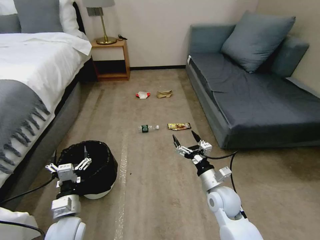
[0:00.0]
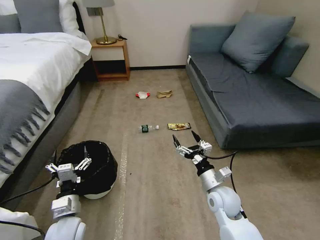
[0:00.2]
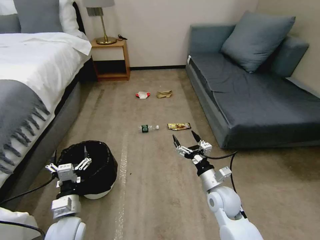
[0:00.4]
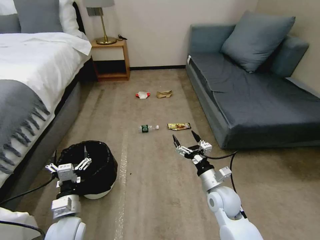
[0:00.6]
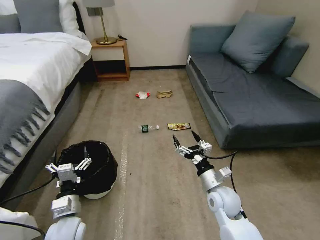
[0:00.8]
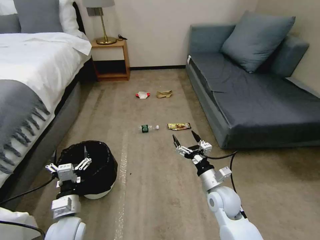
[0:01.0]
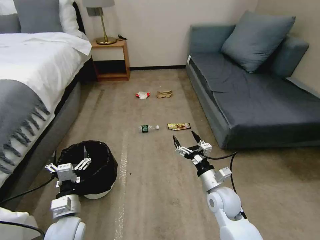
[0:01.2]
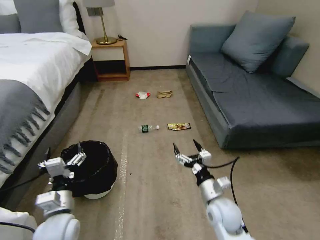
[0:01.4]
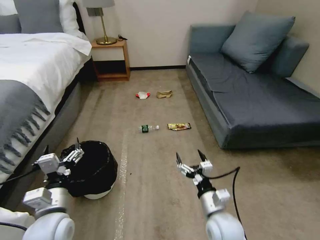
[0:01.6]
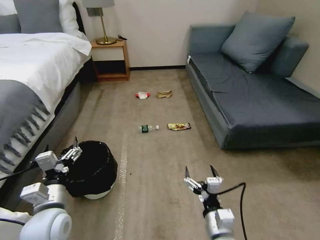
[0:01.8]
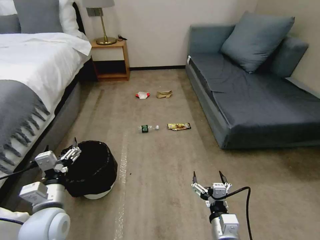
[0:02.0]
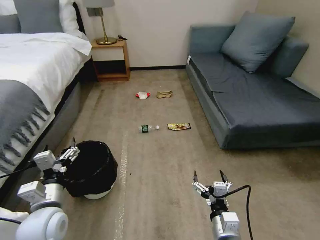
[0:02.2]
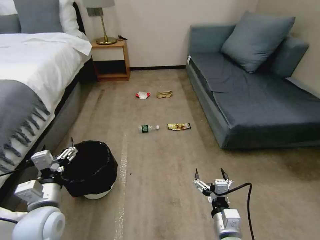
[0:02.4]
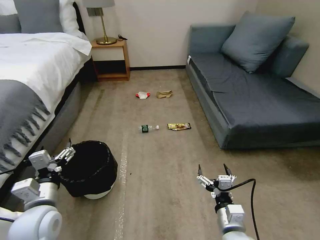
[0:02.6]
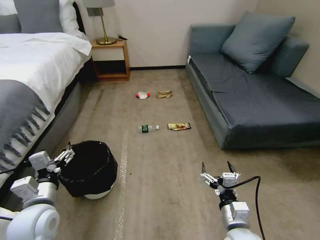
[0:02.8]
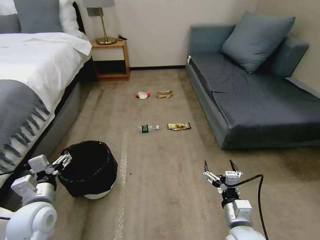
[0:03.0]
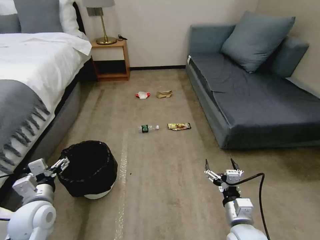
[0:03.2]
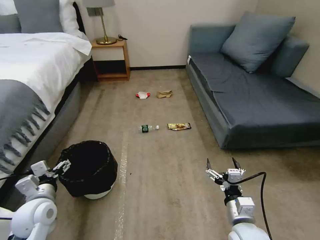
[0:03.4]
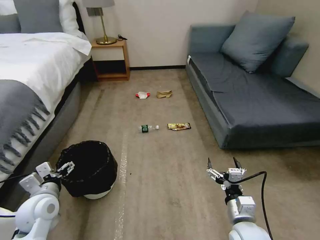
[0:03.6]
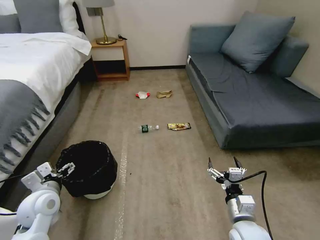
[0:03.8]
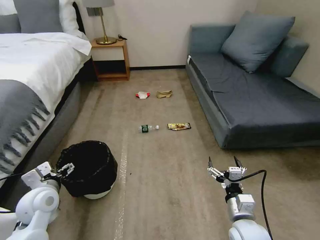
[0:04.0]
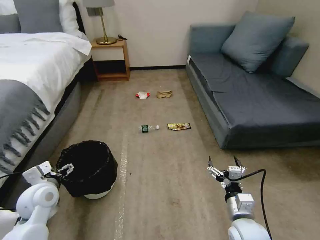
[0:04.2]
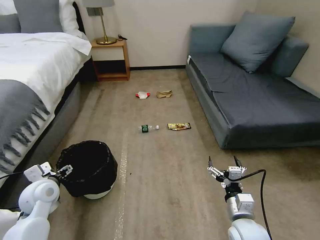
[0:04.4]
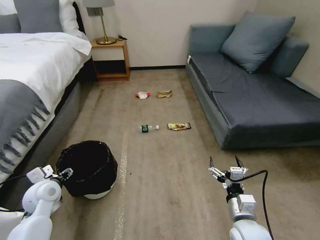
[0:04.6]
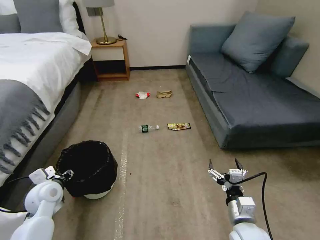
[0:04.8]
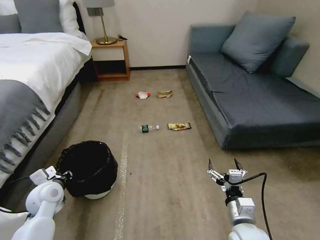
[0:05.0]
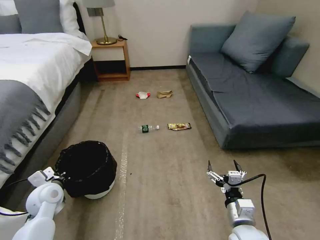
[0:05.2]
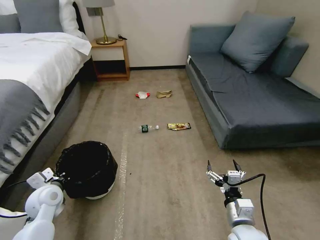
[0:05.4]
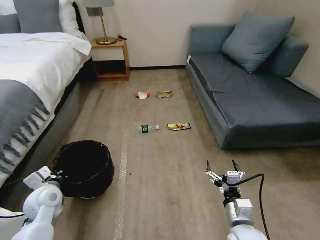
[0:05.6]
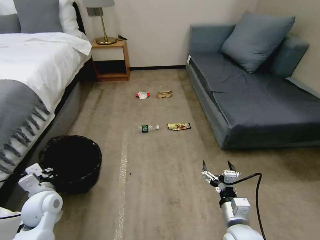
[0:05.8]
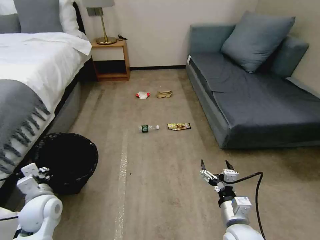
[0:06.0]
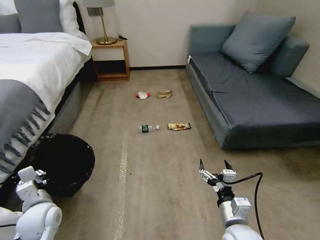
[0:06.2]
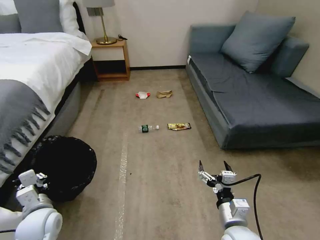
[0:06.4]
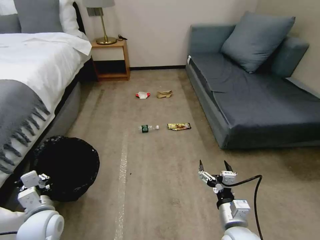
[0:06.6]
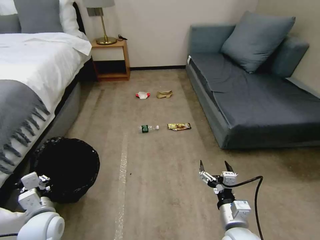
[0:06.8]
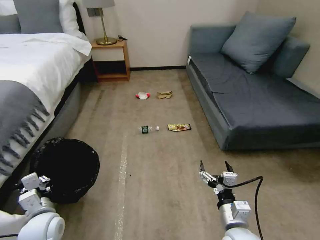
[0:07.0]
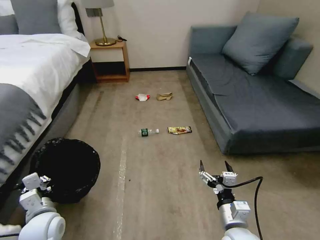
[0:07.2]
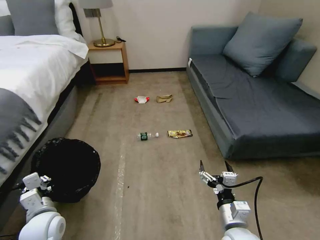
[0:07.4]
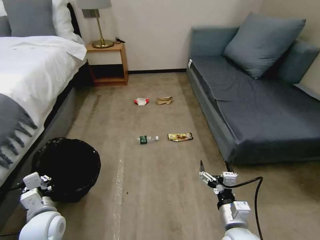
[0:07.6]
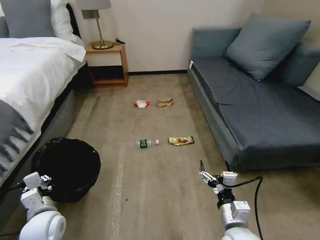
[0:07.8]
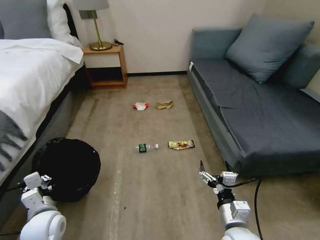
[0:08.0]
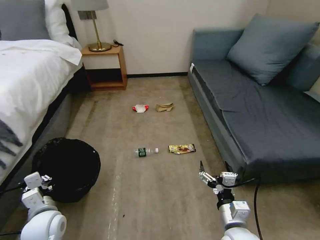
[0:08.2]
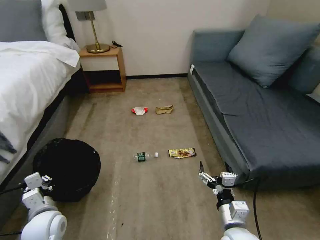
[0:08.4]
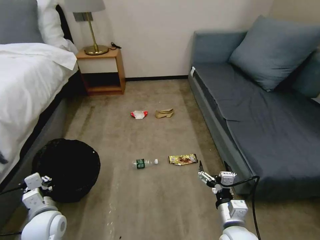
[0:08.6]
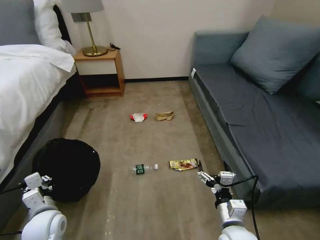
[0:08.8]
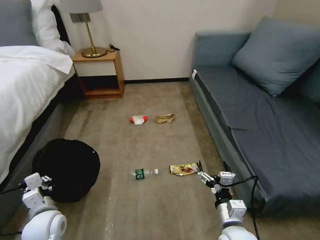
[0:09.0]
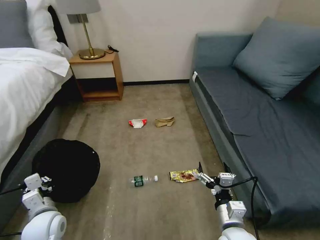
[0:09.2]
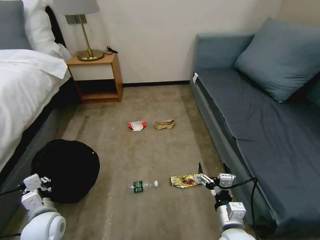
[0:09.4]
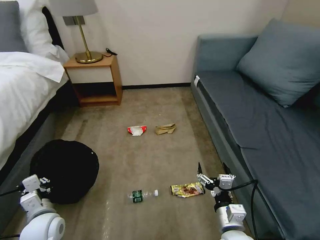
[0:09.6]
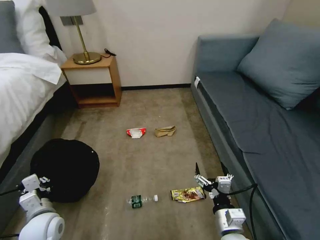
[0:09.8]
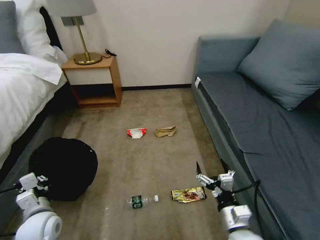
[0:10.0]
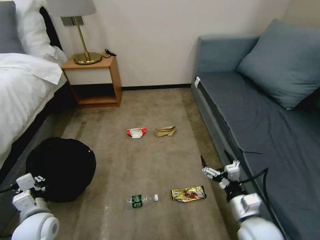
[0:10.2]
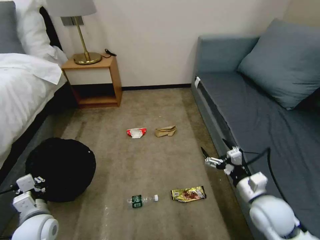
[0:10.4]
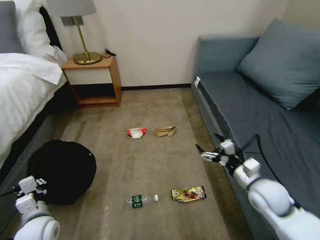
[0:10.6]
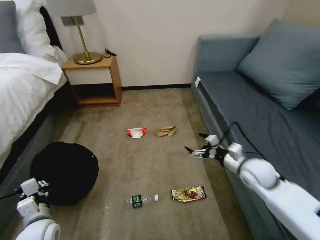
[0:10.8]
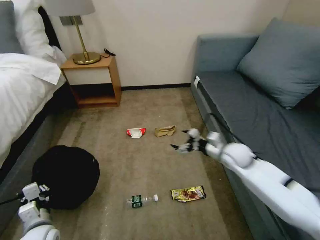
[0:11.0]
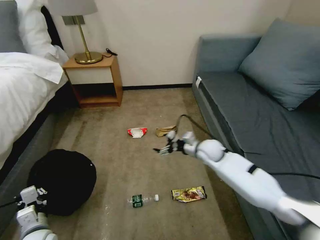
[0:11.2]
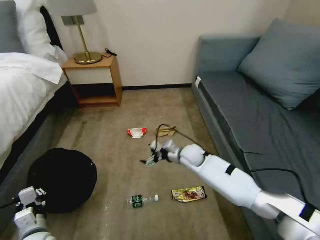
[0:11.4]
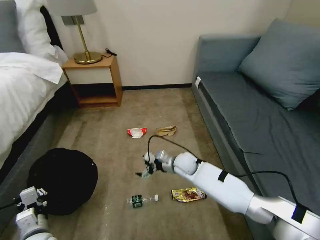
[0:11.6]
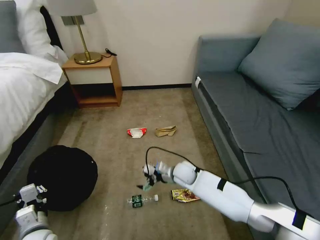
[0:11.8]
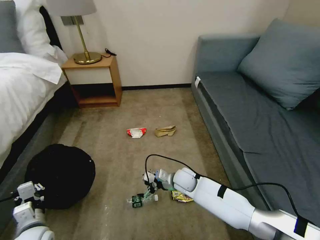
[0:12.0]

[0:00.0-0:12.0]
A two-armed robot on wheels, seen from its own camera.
Task of the whole recording: Pick up the trash bin, then pick up the garbage on the floor and place it into the trash bin.
0:01.6 to 0:03.0: The right gripper ends up roughly 5 cm from where it was. Meanwhile the left gripper heads to the left, covering roughly 5 cm.
0:03.0 to 0:04.4: The left gripper goes about 5 cm forward.
0:04.4 to 0:06.0: The left gripper closes its fingers.
0:09.0 to 0:10.4: The right gripper heads to the right and forward, covering approximately 10 cm.
0:10.4 to 0:12.0: The right gripper travels to the left, forward and downward by approximately 30 cm.

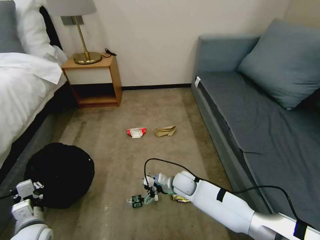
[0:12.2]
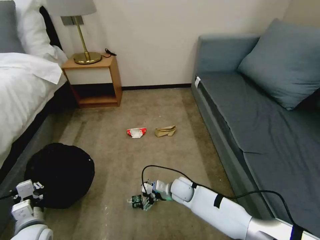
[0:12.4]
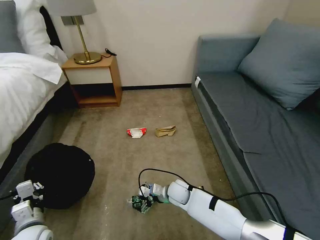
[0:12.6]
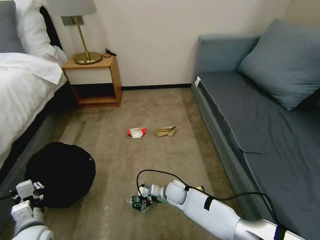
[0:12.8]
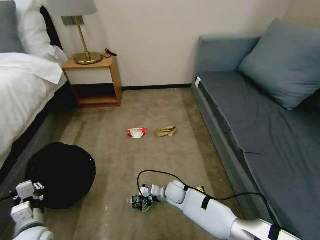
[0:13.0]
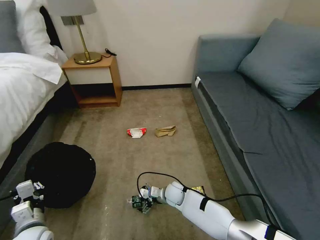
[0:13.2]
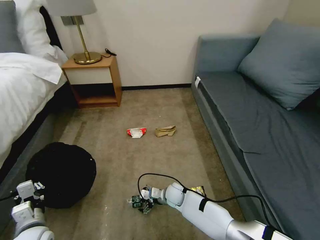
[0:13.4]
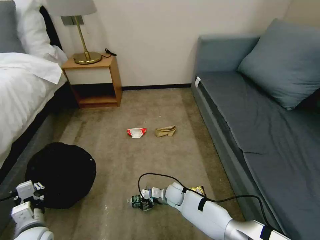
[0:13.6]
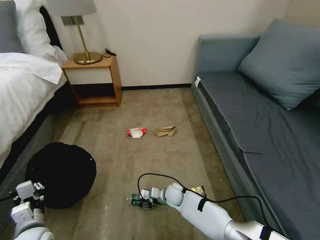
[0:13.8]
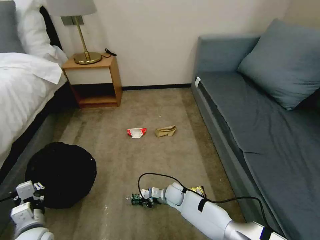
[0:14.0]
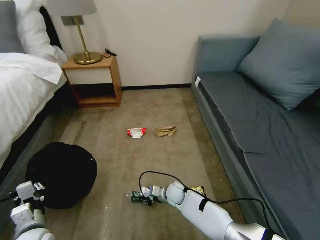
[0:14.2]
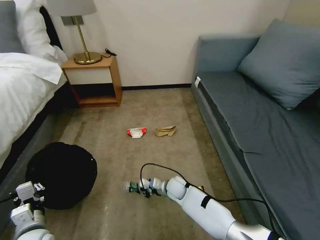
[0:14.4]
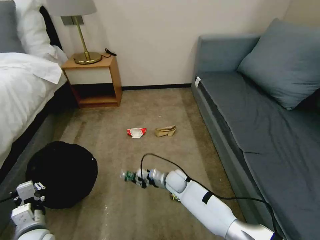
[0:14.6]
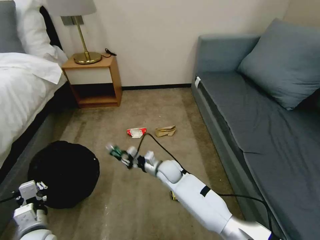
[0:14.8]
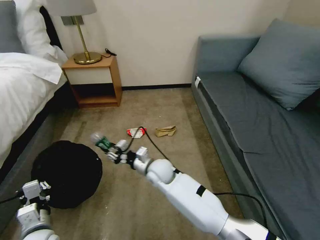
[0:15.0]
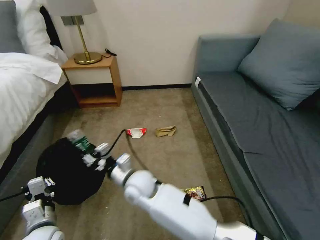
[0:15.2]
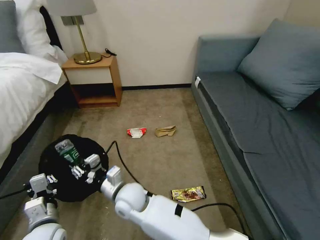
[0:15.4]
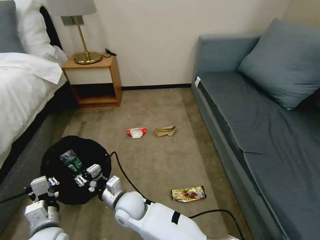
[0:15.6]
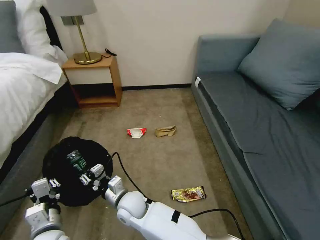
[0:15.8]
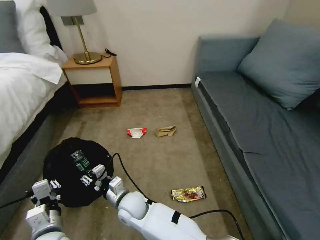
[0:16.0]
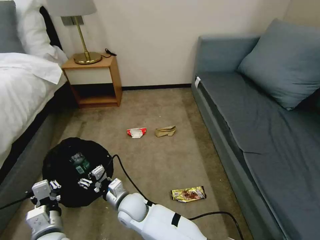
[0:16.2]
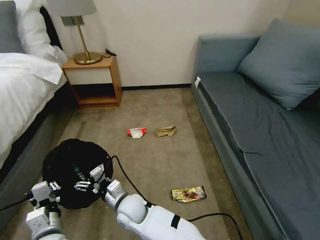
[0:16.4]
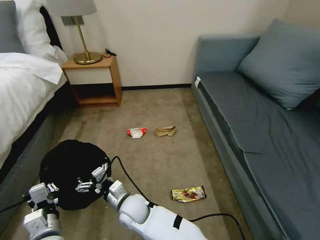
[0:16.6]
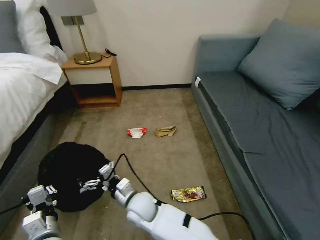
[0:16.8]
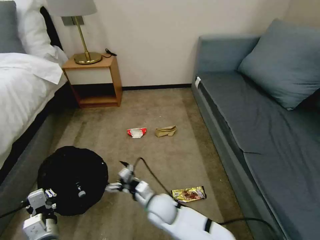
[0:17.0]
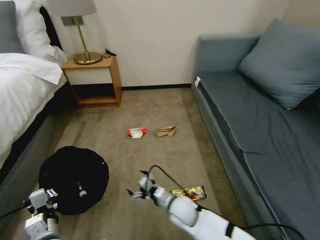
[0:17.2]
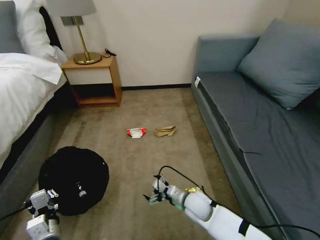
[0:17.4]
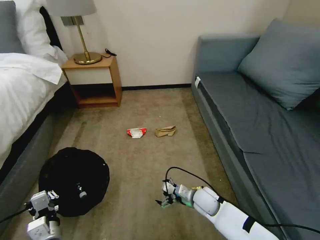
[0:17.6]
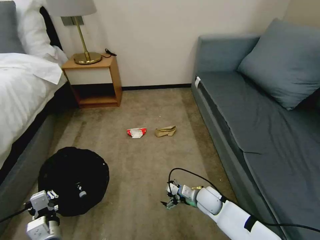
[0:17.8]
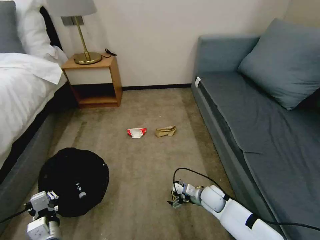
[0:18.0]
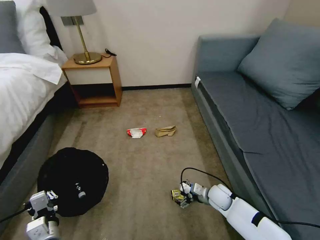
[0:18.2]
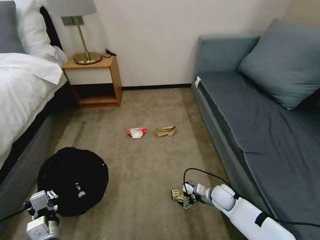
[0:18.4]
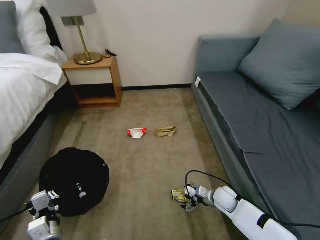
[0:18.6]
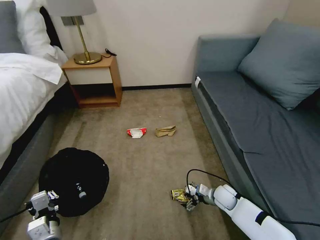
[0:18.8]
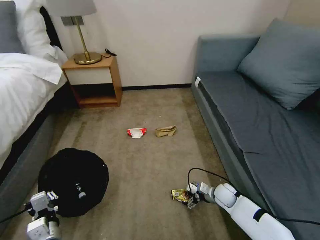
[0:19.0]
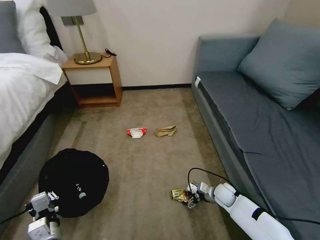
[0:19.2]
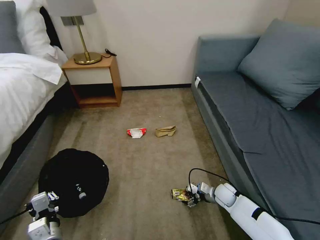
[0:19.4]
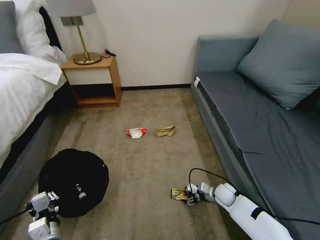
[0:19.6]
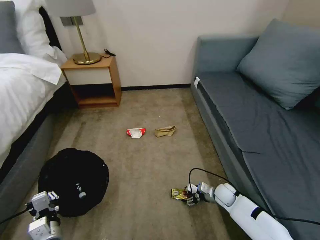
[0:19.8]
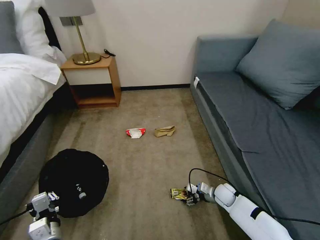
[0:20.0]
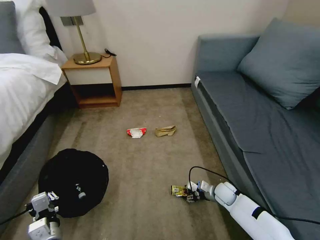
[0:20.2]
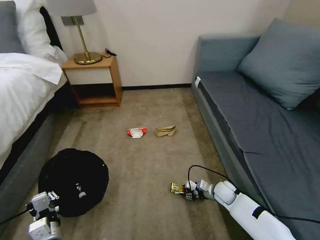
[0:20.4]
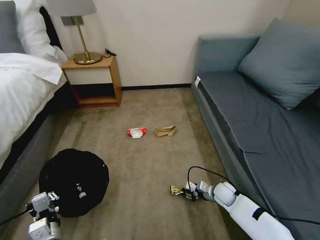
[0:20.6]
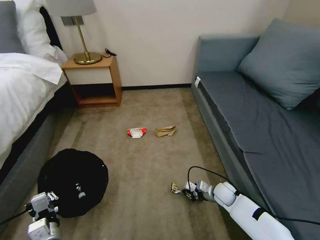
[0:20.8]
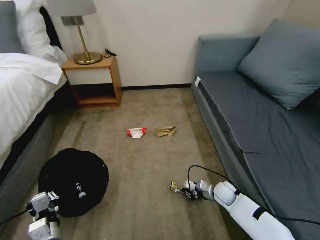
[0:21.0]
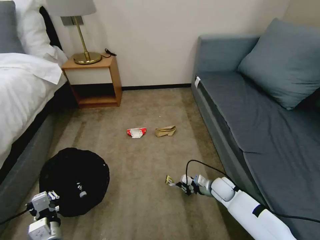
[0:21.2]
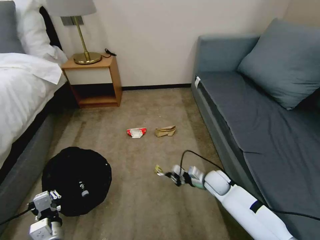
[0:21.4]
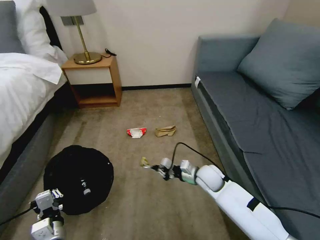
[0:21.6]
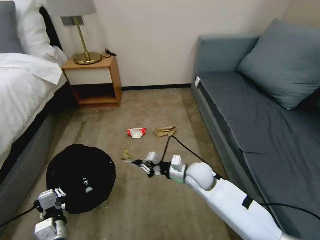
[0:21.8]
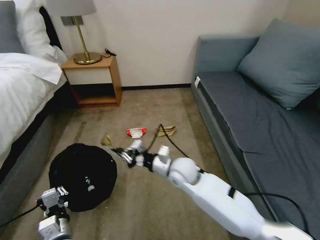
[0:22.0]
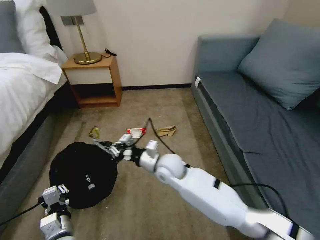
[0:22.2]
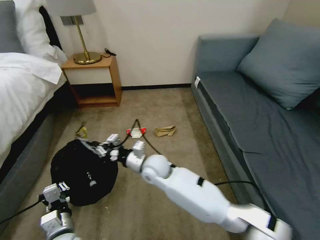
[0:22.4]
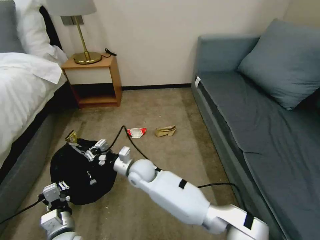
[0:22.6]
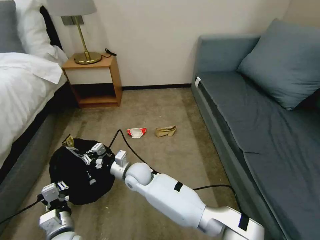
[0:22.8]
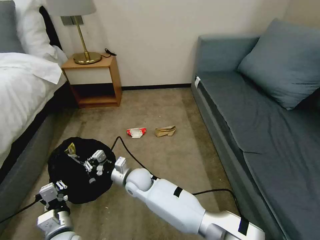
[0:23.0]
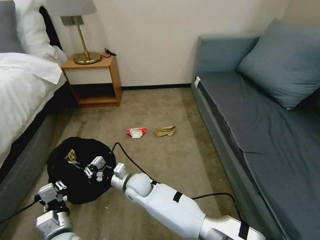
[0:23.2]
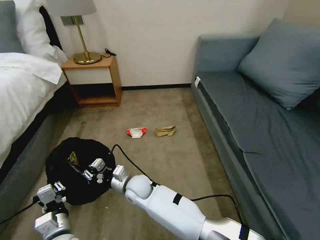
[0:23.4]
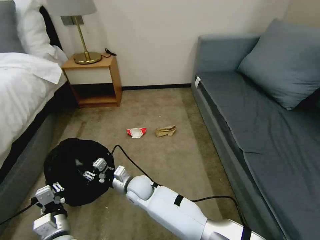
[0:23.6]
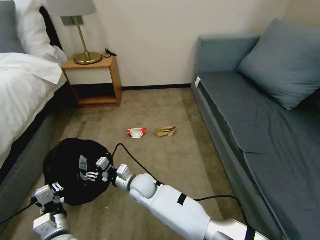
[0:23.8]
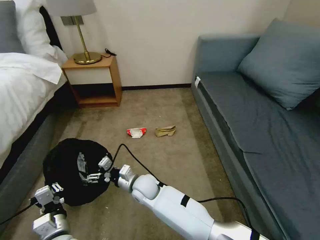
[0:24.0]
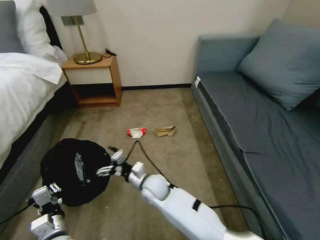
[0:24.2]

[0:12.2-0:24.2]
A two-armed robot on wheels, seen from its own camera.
Task of the whole recording: Pick up the trash bin, then pick up the garbage on the floor and place it into the trash bin.
0:12.2 to 0:13.8: The right gripper moves downward, some 10 cm, and closes its fingers.
0:13.8 to 0:15.2: The right gripper goes some 25 cm upward and to the left.
0:15.2 to 0:16.6: The right gripper shifts approximately 10 cm downward, and opens its fingers.
0:16.6 to 0:18.2: The right gripper goes roughly 35 cm to the right.
0:18.2 to 0:19.8: The right gripper heads to the right, covering some 5 cm.
0:19.8 to 0:21.2: The right gripper closes up.
0:21.2 to 0:22.6: The right gripper is displaced to the left and upward by some 35 cm.
0:22.6 to 0:24.2: The right gripper moves approximately 10 cm, and opens its fingers.
